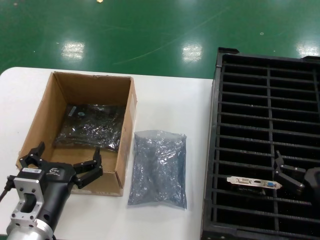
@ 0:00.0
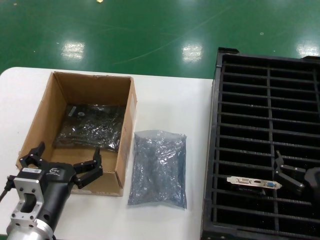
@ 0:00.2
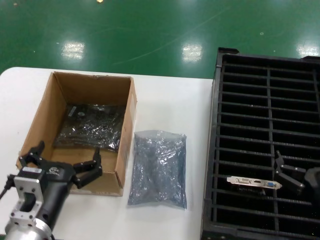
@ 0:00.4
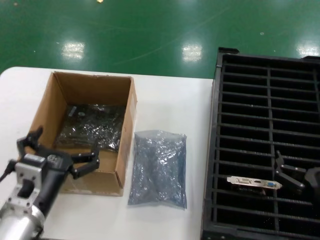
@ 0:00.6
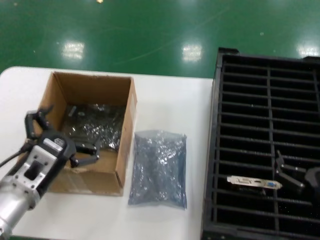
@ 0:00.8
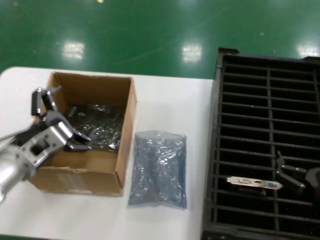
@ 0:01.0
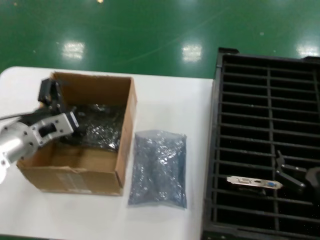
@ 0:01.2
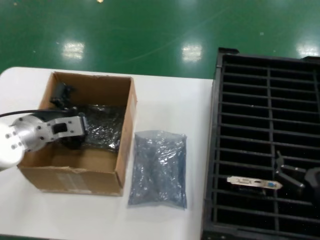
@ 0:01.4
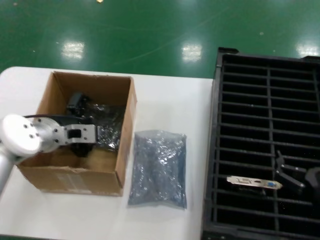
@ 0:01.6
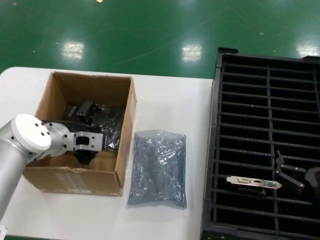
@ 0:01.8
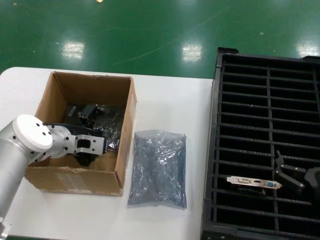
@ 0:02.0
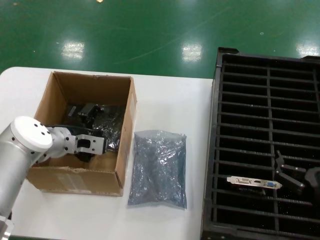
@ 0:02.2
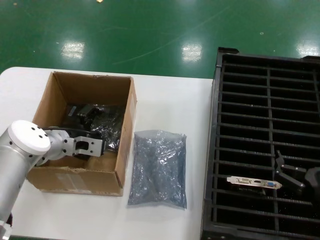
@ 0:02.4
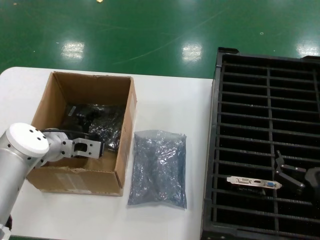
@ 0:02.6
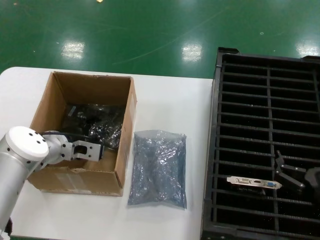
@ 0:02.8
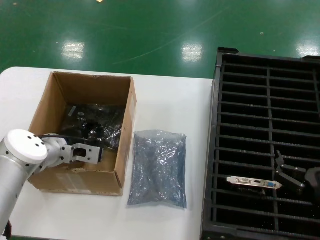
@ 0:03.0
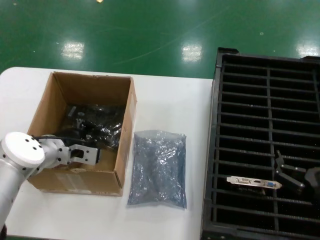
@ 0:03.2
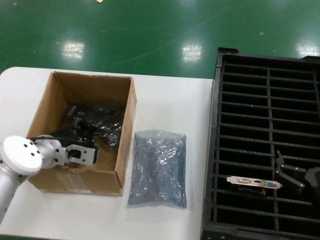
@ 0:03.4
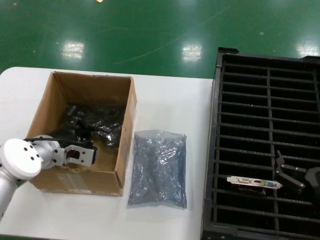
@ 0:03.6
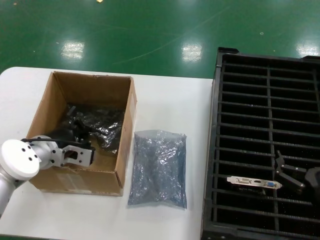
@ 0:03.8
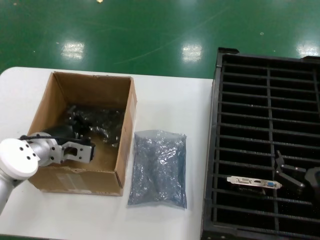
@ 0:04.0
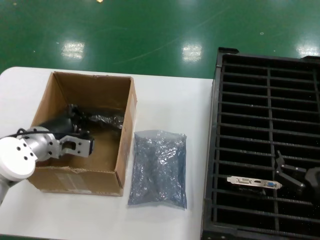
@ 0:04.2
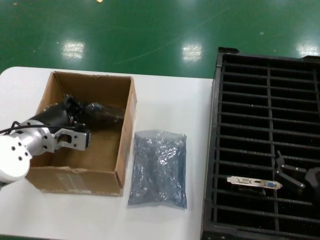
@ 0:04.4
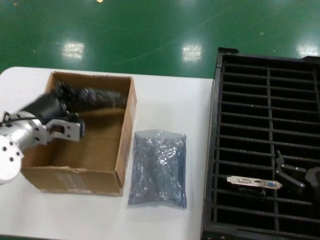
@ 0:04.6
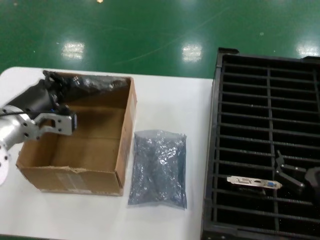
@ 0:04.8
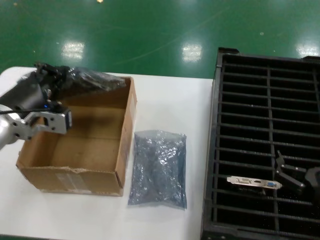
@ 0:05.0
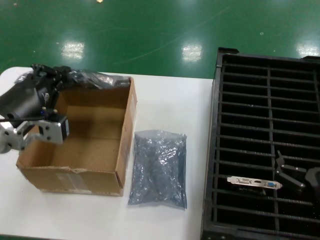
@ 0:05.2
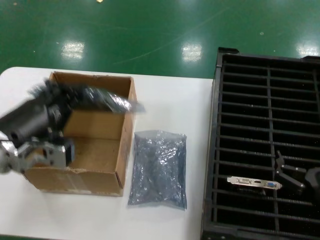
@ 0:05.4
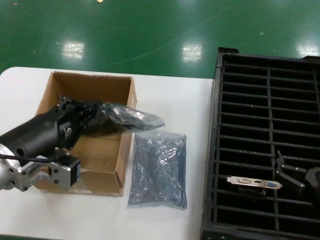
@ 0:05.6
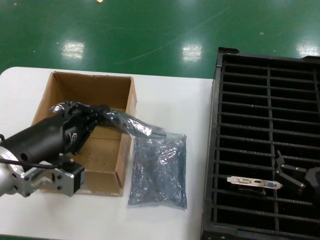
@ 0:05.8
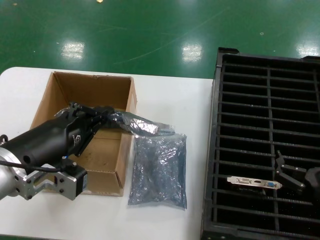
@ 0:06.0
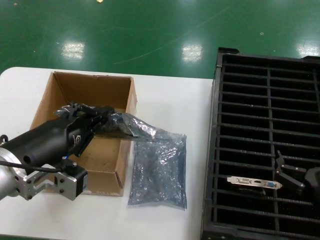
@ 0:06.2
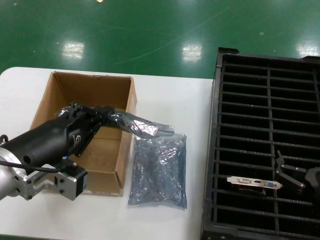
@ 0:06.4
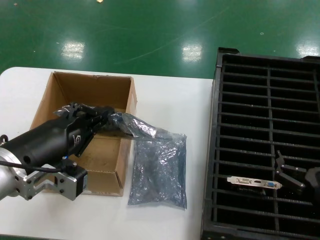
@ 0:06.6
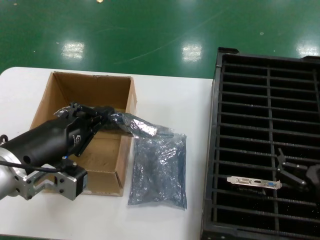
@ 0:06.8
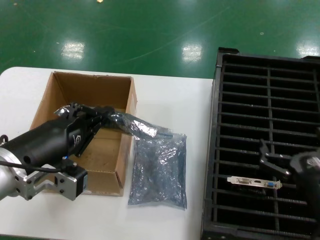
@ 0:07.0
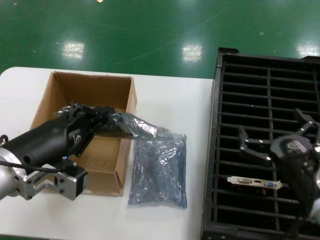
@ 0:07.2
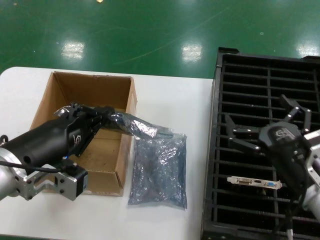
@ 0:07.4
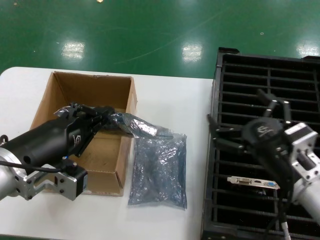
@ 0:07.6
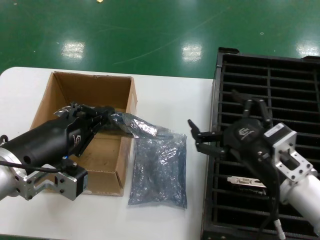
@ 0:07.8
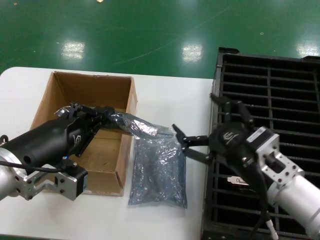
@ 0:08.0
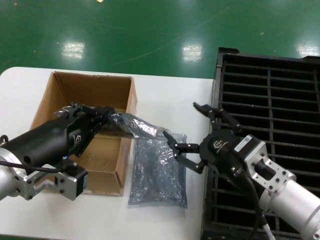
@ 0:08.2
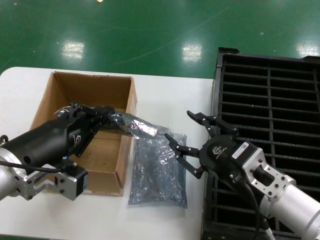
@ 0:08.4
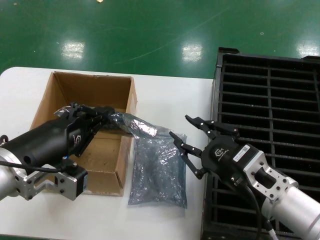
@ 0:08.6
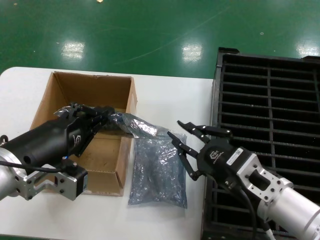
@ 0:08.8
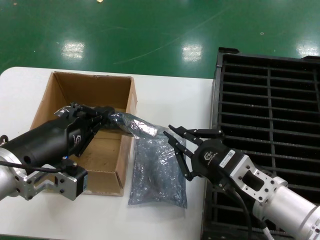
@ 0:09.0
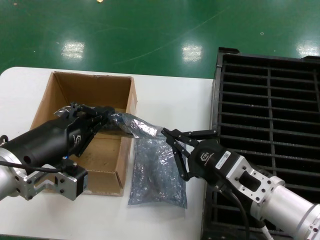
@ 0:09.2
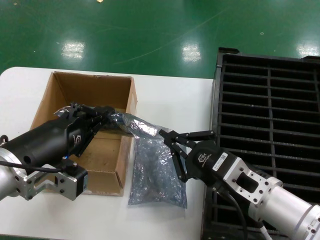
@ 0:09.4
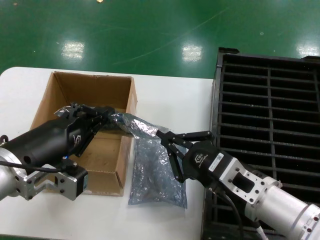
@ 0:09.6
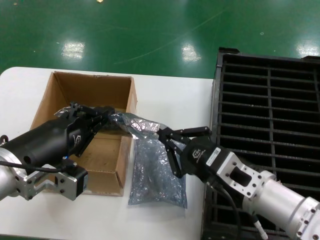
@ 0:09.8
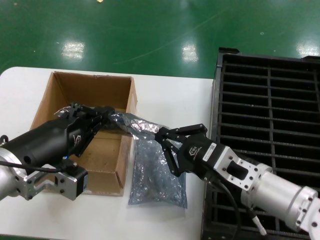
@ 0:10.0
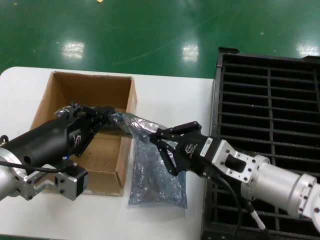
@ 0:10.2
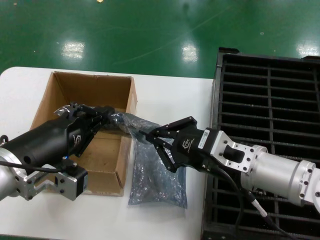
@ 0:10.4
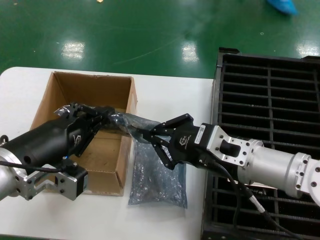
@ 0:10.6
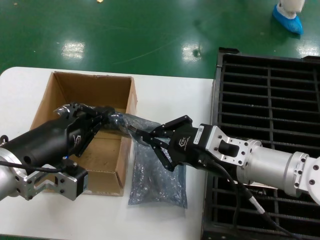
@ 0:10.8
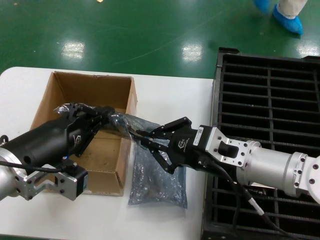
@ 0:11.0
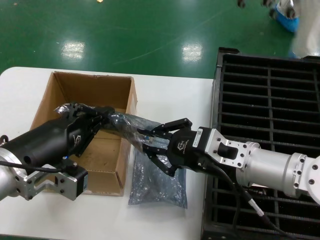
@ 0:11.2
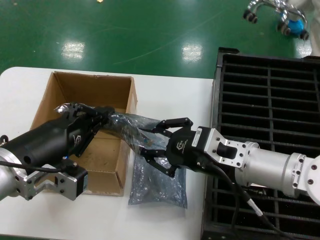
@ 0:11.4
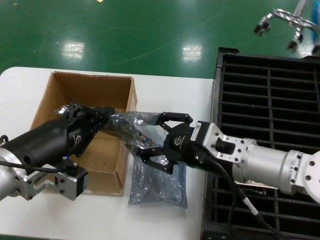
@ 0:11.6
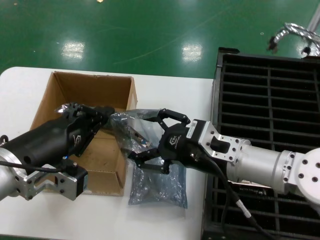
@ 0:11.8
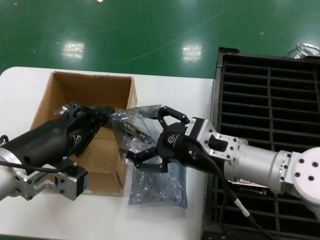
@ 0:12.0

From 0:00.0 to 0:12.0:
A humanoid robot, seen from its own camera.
Task of the whole recording: take out graphics card from box remove packaging put into black container.
Step, from 0:00.0 to 0:03.8: Grasp the bag.
Step, from 0:04.0 to 0:06.6: Lift the bag.
From 0:00.0 to 0:01.6: The left hand travels forward and upward by some 25 cm.
From 0:01.6 to 0:03.0: There are only small adjustments of the hands.
From 0:03.0 to 0:04.4: The left hand moves about 5 cm.
From 0:04.4 to 0:06.0: The left hand heads backward, covering some 20 cm.
From 0:06.0 to 0:07.6: The right hand moves upward, to the left and forward, some 10 cm.
From 0:07.6 to 0:09.0: The right hand goes about 5 cm to the left.
From 0:09.0 to 0:10.4: The right hand moves approximately 5 cm.
From 0:10.4 to 0:12.0: The hands stay close to where they were, moving slightly.

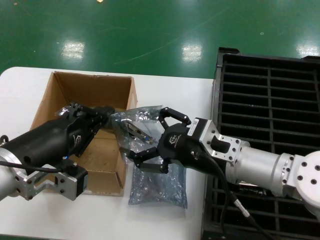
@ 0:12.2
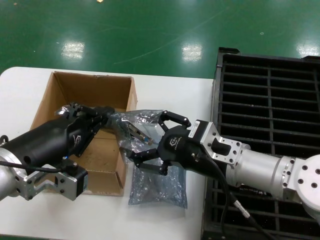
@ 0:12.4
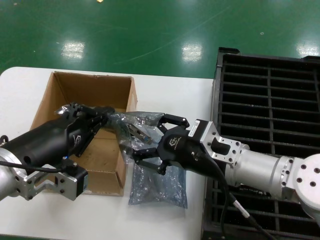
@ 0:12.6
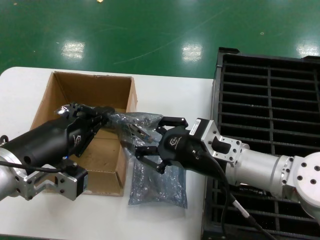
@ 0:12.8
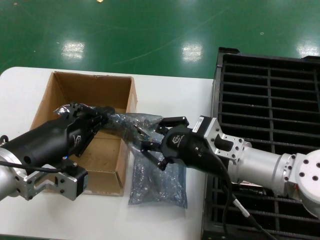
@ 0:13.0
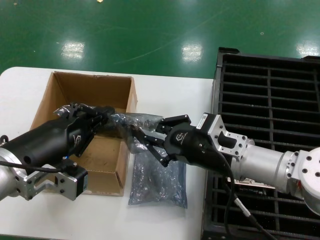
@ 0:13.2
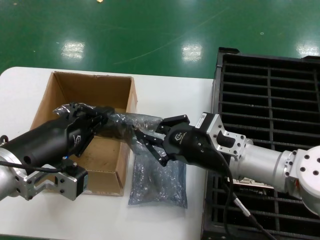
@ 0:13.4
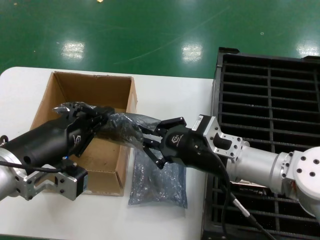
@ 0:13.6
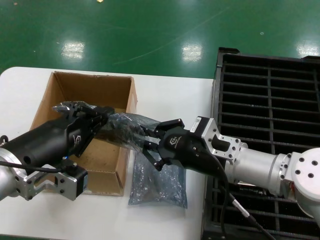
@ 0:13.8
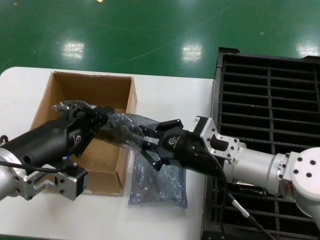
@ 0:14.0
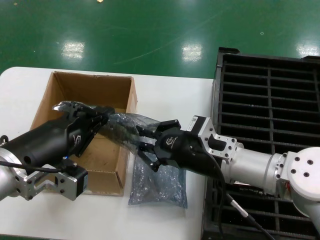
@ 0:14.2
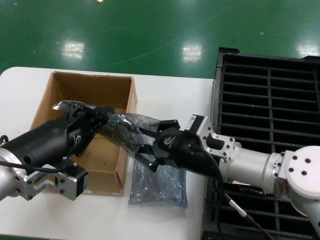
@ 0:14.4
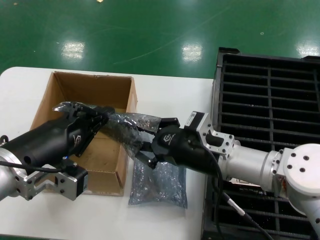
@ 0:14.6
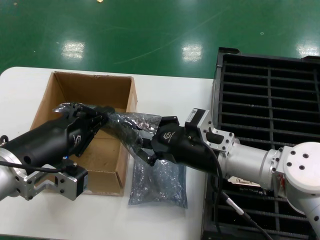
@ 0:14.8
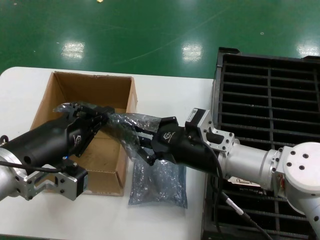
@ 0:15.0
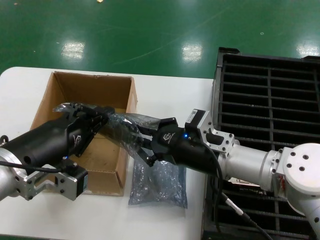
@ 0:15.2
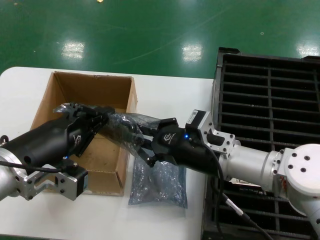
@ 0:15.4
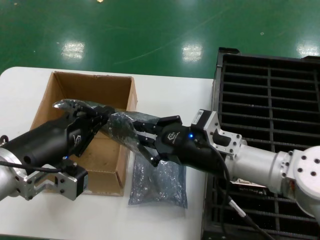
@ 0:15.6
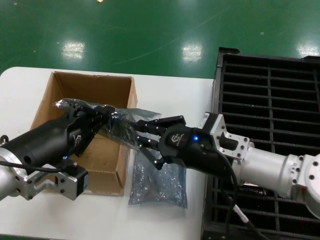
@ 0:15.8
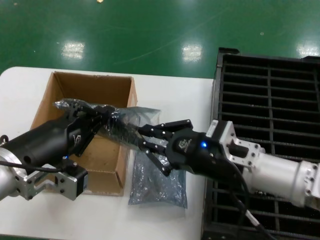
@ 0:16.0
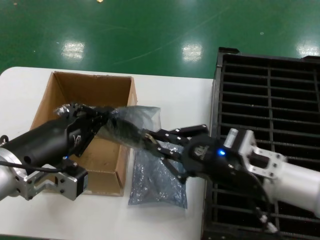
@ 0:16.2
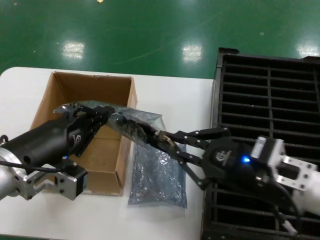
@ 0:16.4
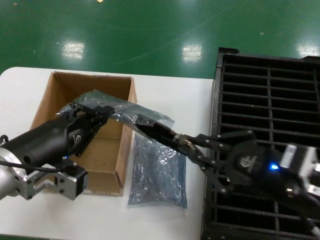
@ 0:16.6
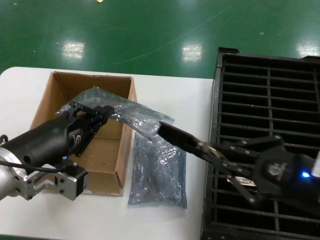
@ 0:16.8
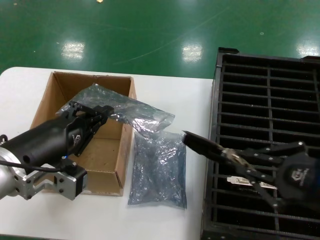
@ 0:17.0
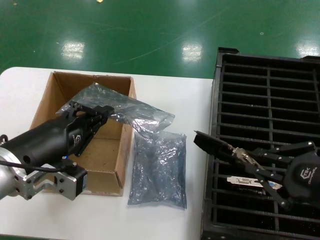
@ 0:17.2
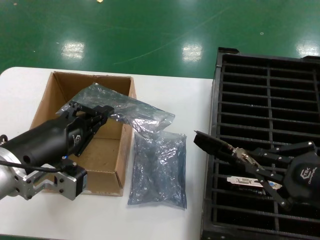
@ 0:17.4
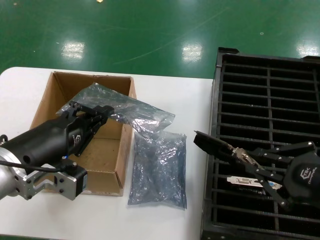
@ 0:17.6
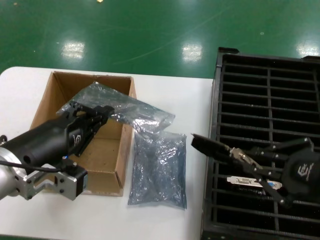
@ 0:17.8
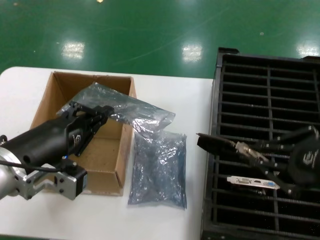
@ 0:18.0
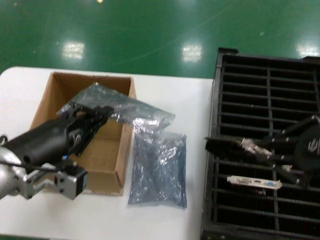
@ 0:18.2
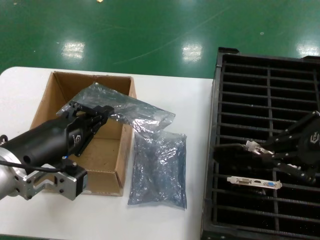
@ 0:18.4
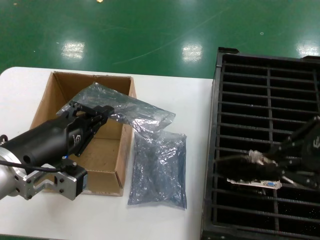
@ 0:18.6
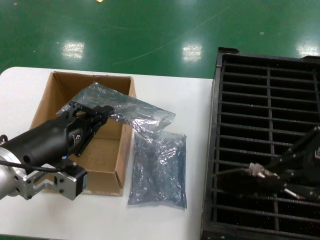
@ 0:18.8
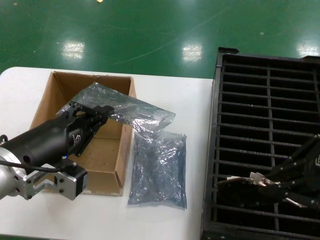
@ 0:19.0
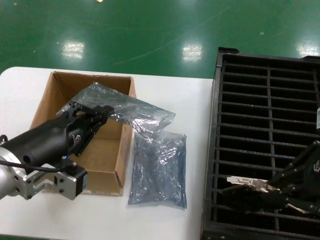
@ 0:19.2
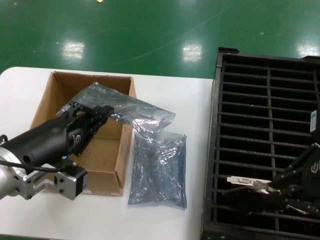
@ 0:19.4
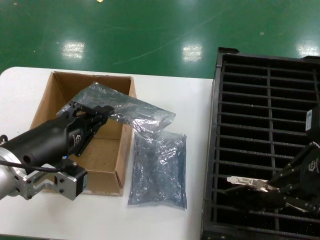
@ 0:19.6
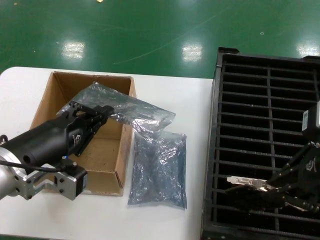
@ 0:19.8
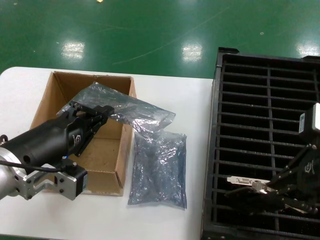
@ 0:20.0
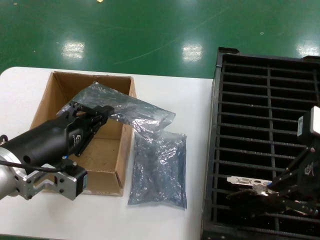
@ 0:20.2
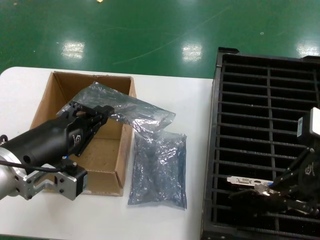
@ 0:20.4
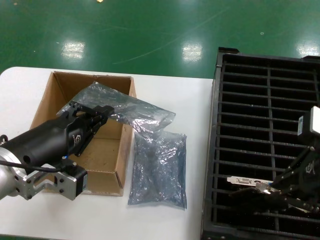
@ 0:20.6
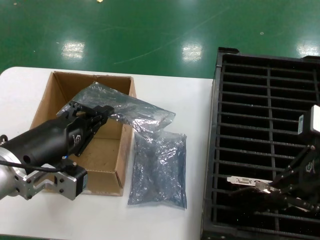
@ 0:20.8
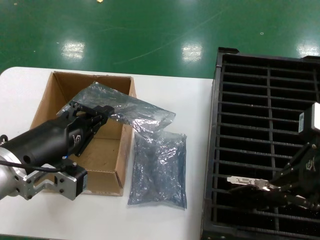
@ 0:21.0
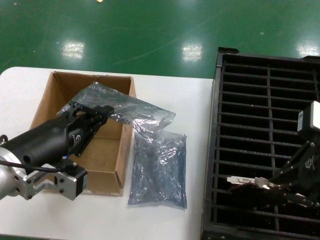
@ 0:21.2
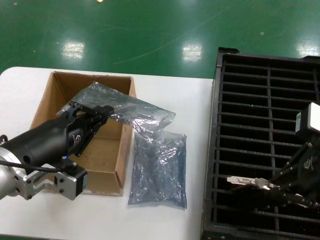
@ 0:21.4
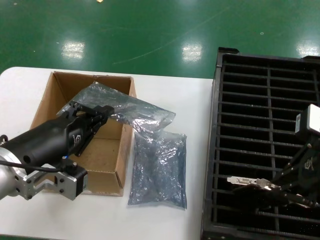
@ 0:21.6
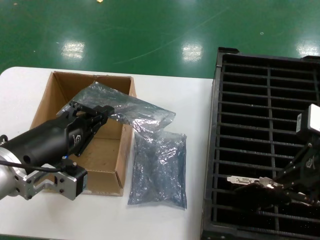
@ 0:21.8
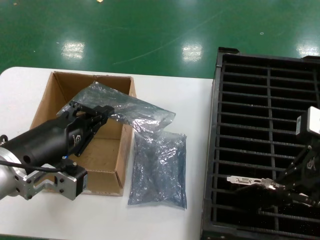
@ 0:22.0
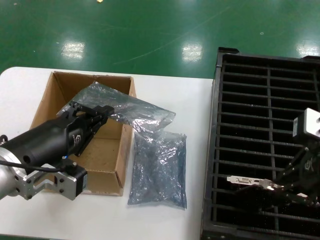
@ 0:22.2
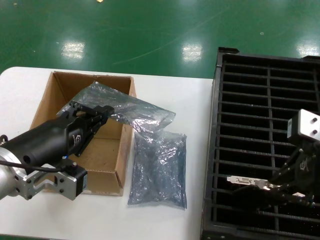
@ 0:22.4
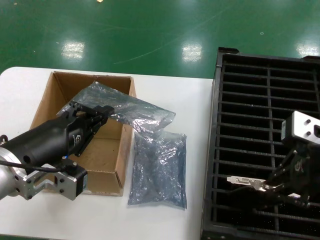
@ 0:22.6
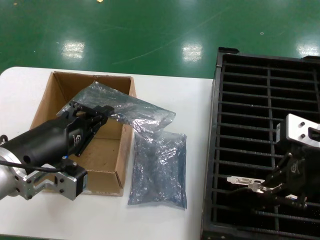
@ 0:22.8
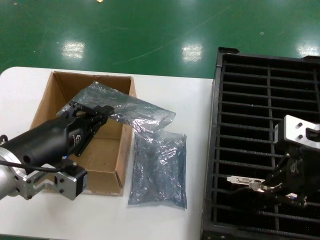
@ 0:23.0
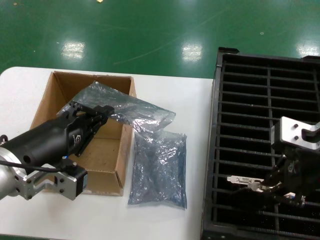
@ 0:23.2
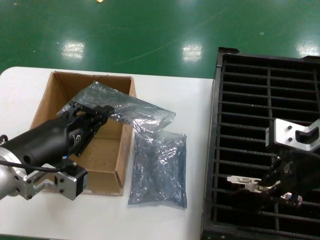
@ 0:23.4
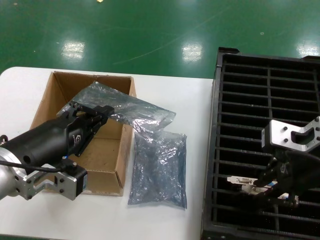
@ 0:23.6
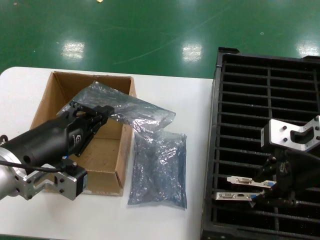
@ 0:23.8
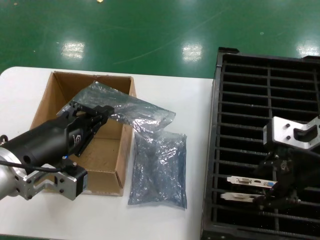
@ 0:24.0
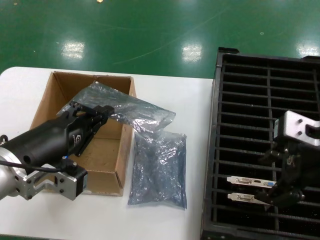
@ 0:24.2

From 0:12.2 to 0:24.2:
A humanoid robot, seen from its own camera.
Task of the whole recording: take out graphics card from box remove packaging put into black container.
Step, from 0:12.2 to 0:16.8: Take out the hard disk of the bag.
From 0:12.2 to 0:15.2: The hands move only a little.
From 0:15.2 to 0:16.6: The right hand is displaced backward, to the right and upward by about 20 cm.
From 0:16.6 to 0:18.2: The right hand travels upward and to the right by some 15 cm.
From 0:18.2 to 0:19.8: The right hand moves approximately 5 cm.
From 0:19.8 to 0:22.6: There are only small adjustments of the hands.
From 0:22.6 to 0:24.2: There are only small adjustments of the hands.
